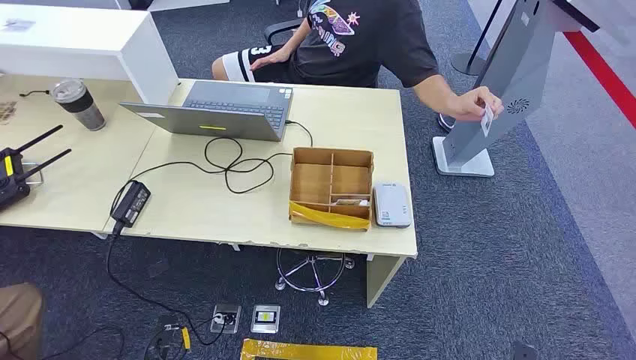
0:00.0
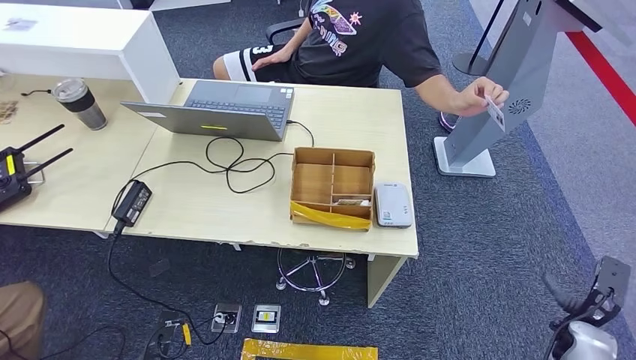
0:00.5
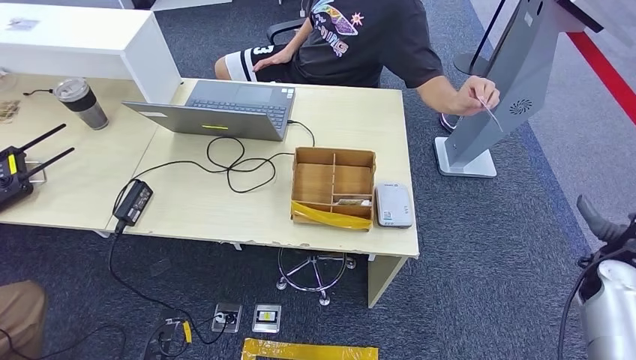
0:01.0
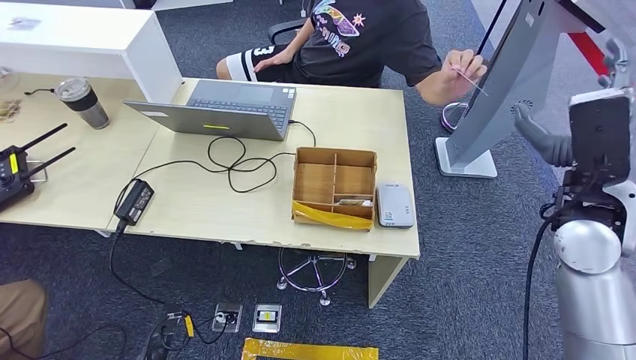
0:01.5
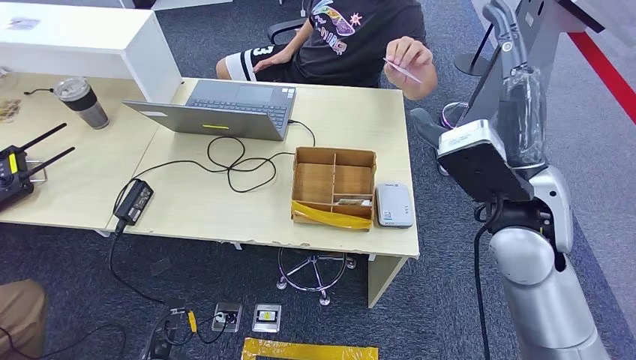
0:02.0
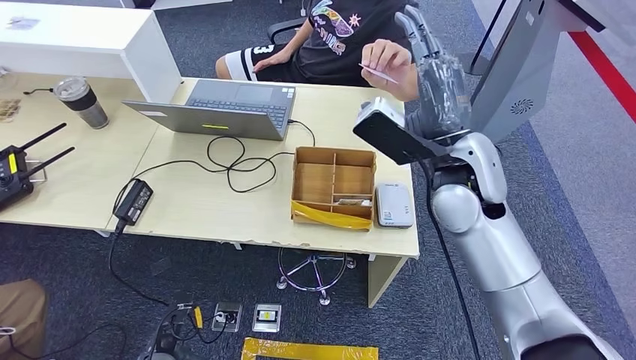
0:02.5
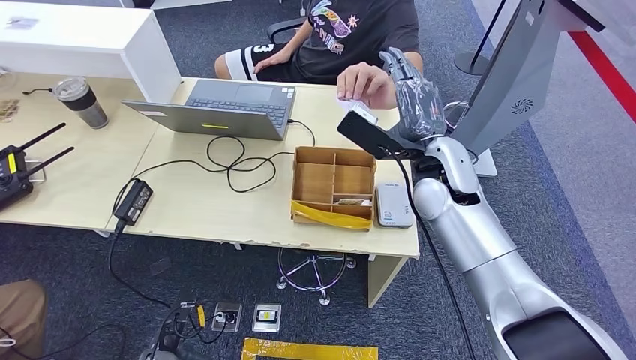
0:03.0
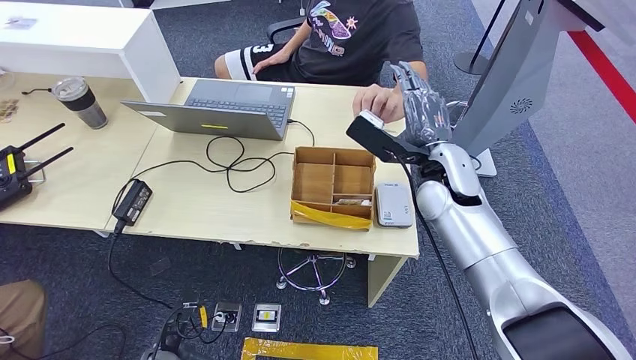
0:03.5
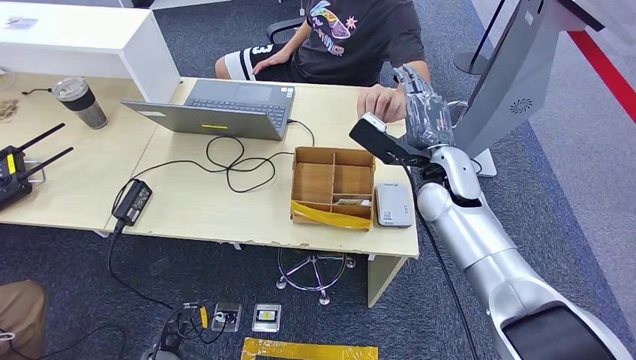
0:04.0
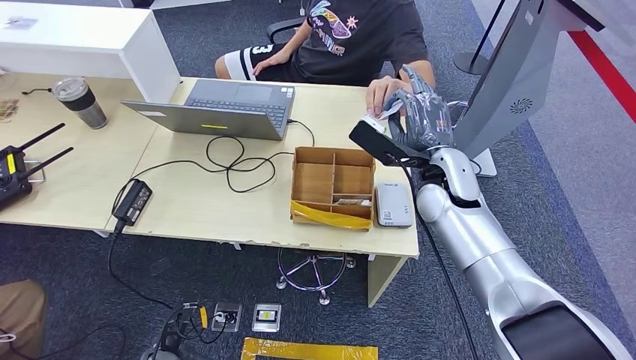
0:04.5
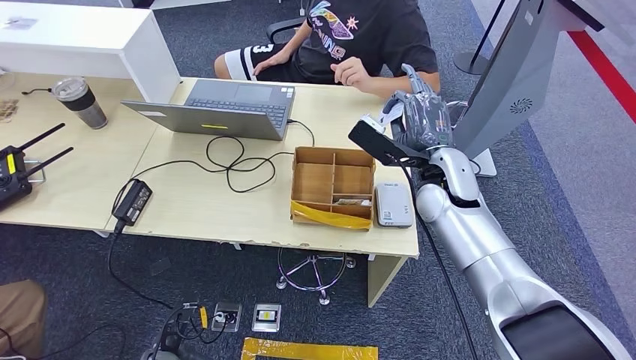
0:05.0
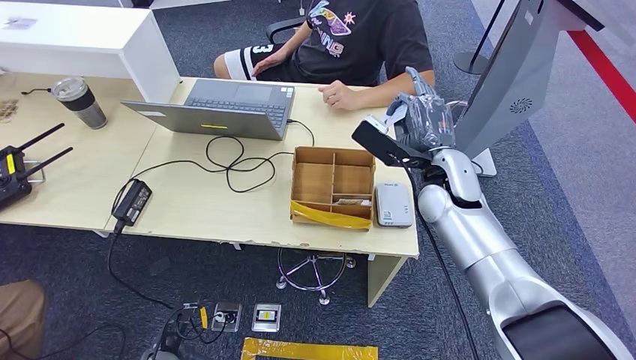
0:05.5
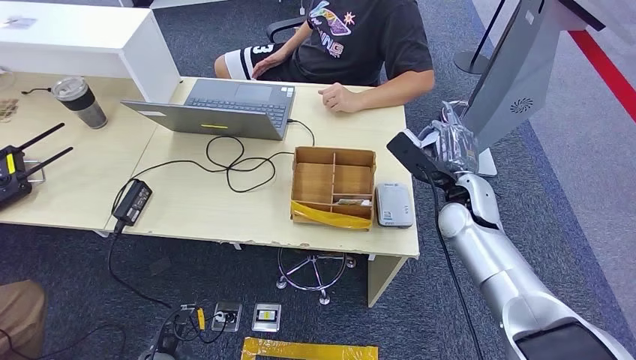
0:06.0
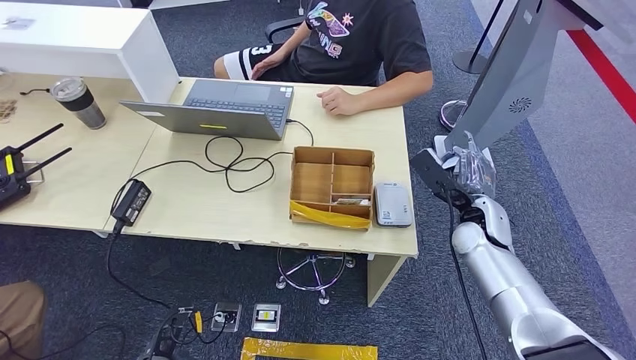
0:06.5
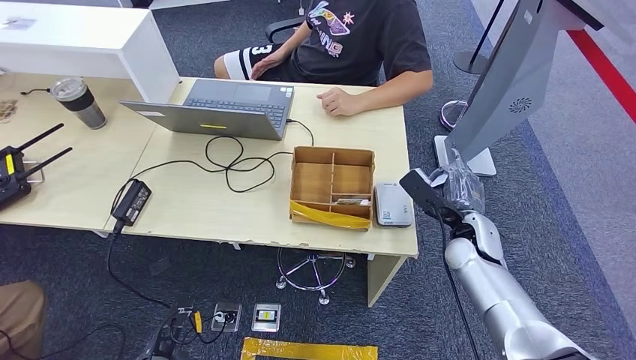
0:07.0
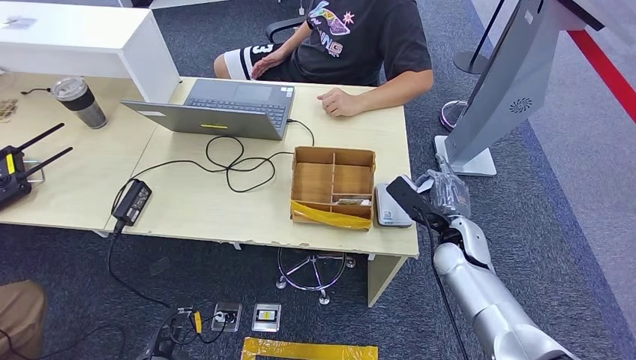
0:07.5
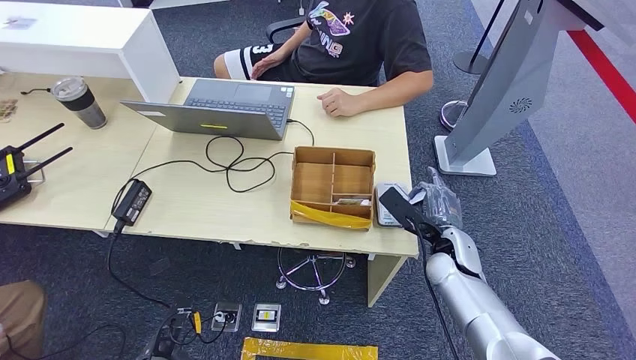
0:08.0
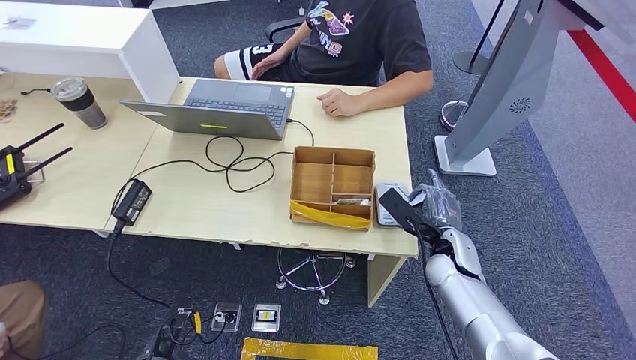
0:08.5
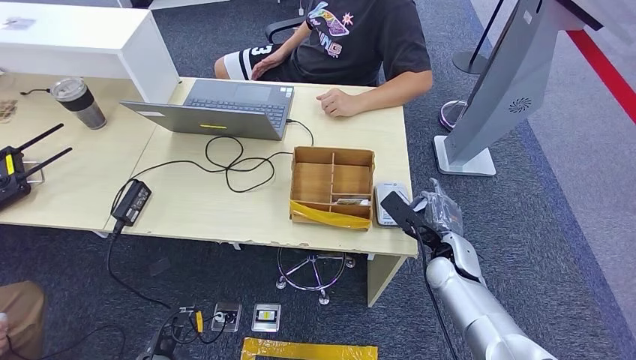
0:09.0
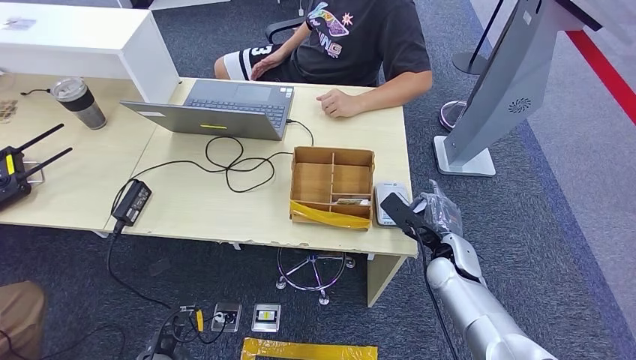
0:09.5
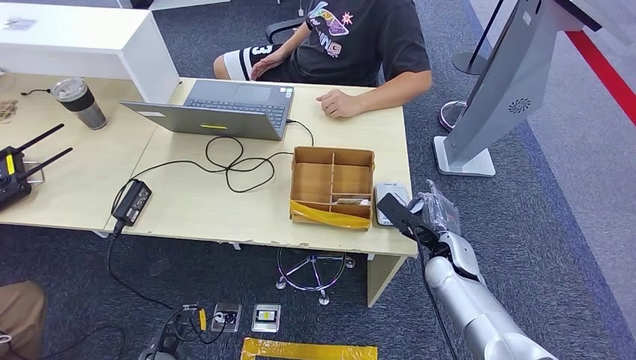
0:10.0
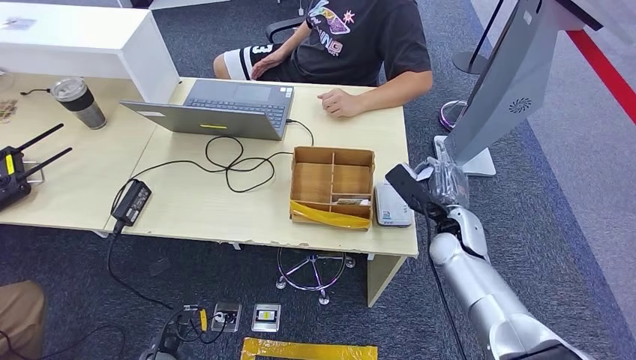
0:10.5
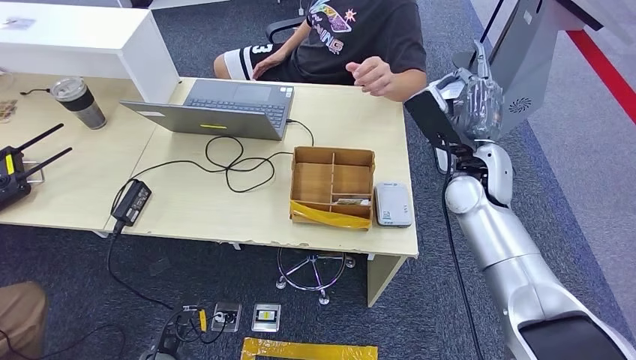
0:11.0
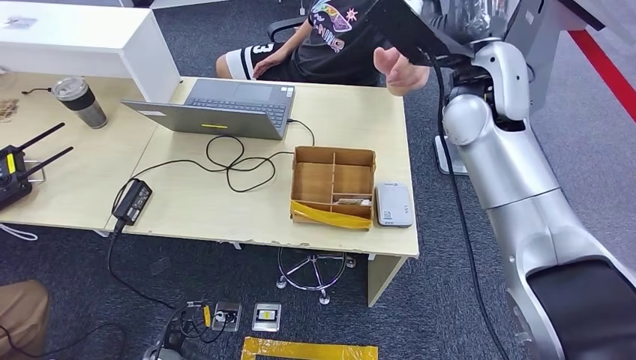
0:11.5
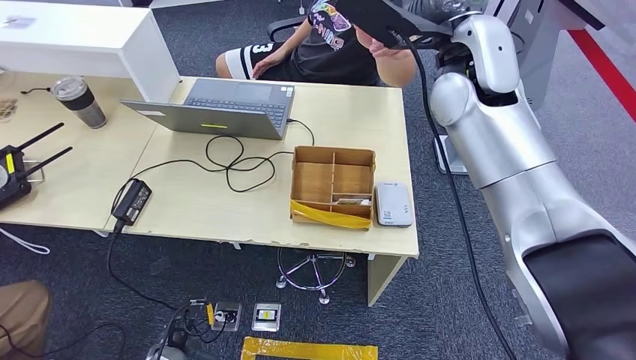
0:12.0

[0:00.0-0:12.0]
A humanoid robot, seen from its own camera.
Step, 0:00.0 to 0:04.0: Take the ID card from the person's hand.
Step, 0:04.5 to 0:09.0: Place the ID card on the card reader.
0:02.0 to 0:04.0: The right hand shifts roughly 15 cm downward and forward.
0:04.0 to 0:06.0: The right hand is displaced to the right and downward by about 10 cm.
0:06.0 to 0:08.0: The right hand shifts roughly 10 cm downward and backward.
0:08.0 to 0:10.0: There are only small adjustments of the hands.

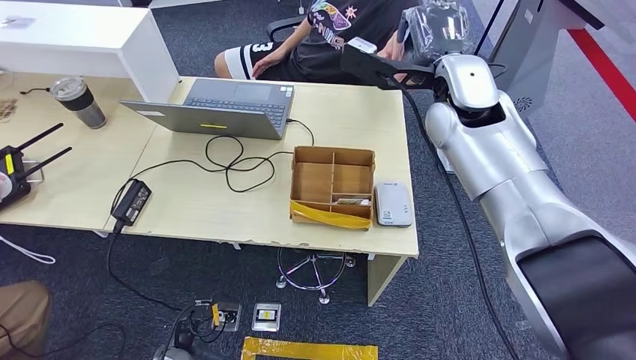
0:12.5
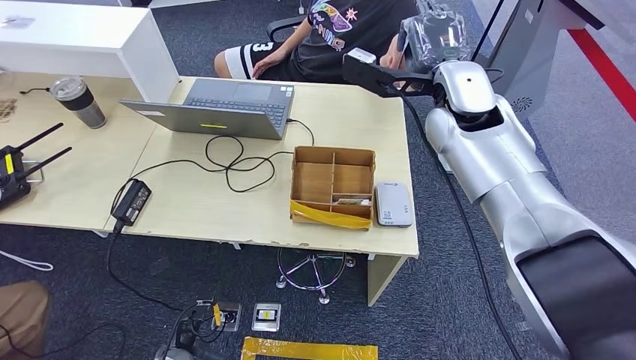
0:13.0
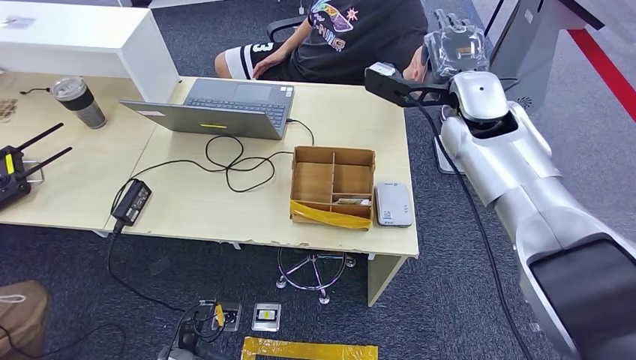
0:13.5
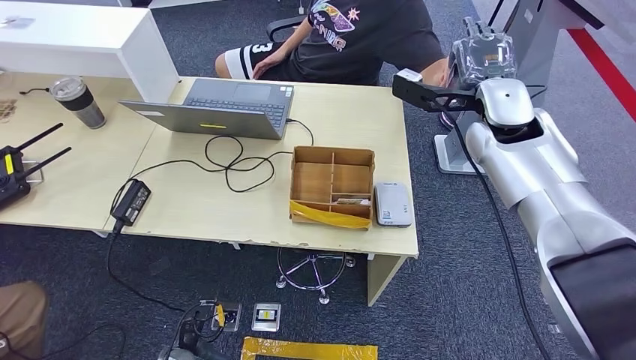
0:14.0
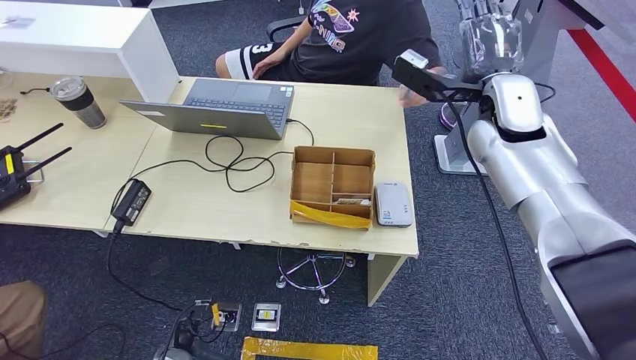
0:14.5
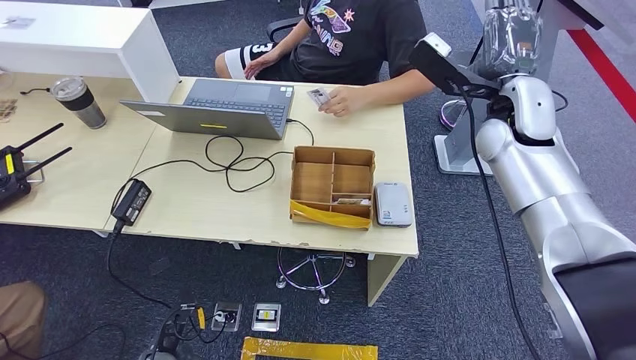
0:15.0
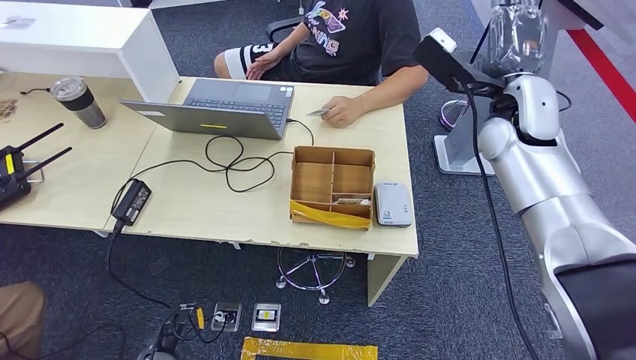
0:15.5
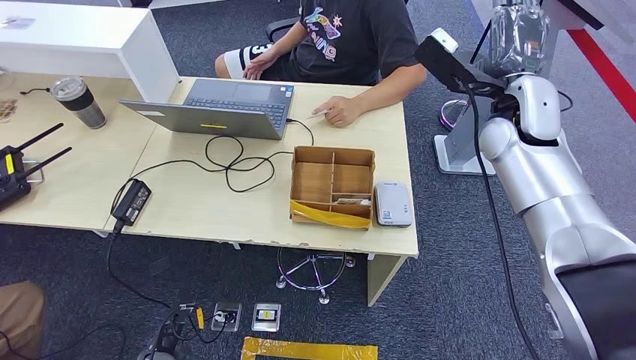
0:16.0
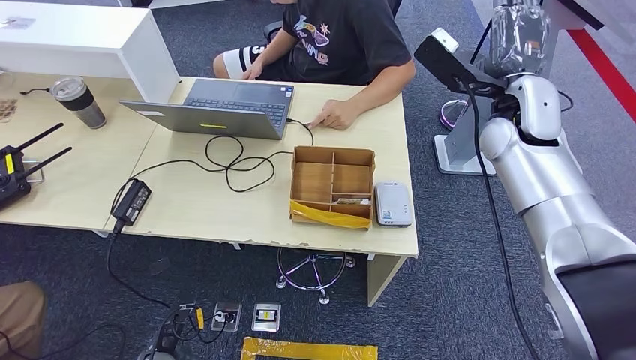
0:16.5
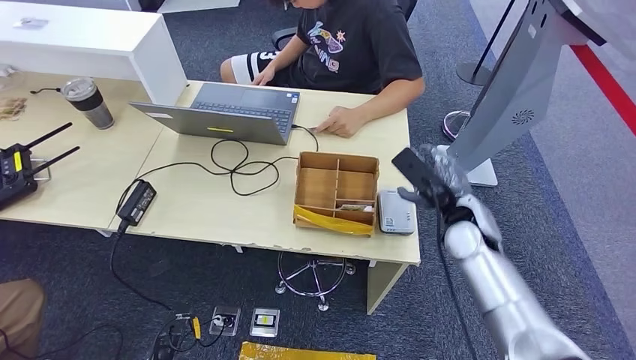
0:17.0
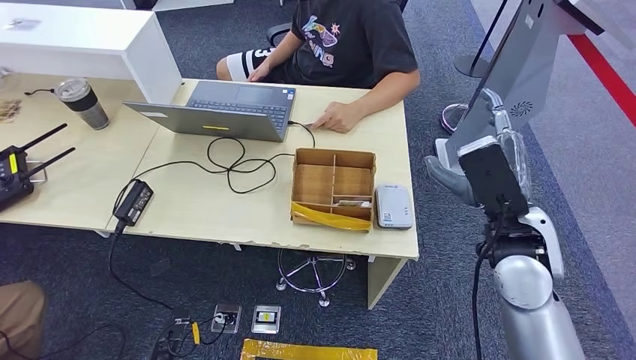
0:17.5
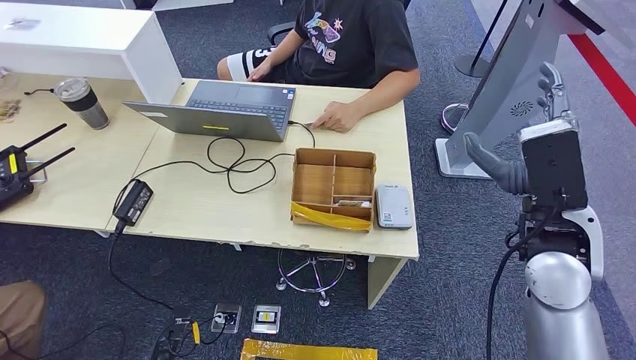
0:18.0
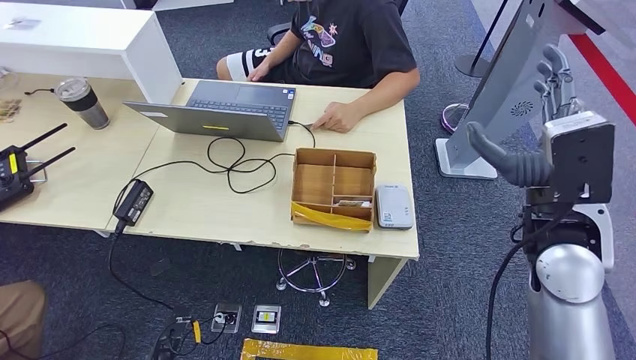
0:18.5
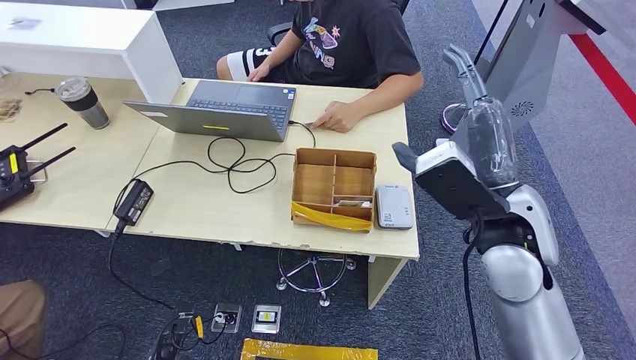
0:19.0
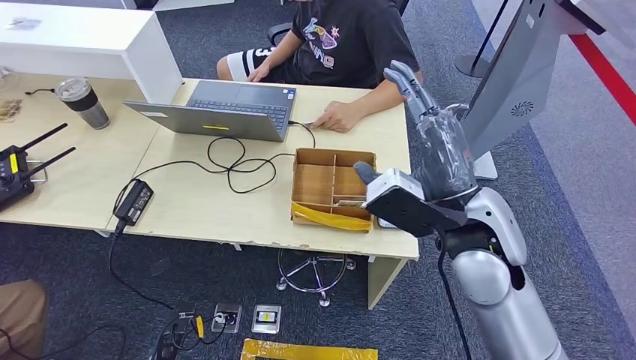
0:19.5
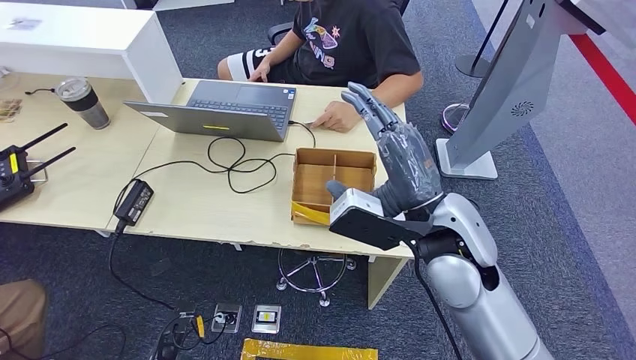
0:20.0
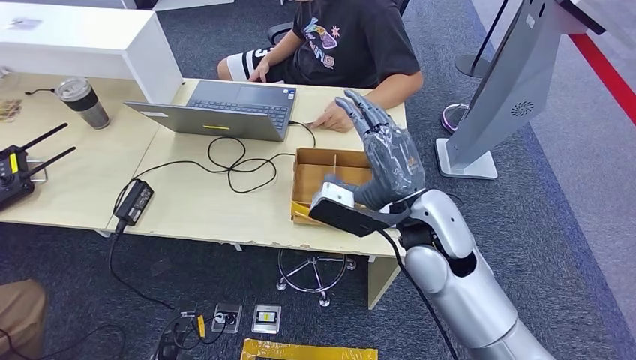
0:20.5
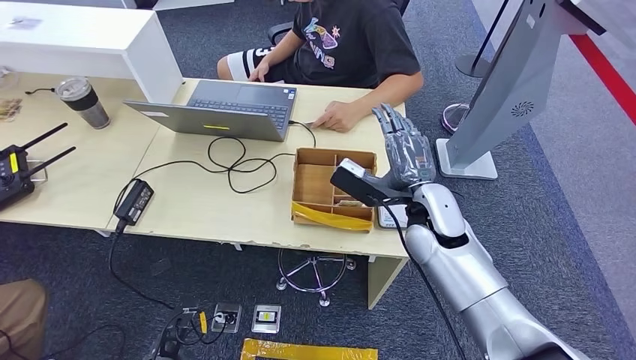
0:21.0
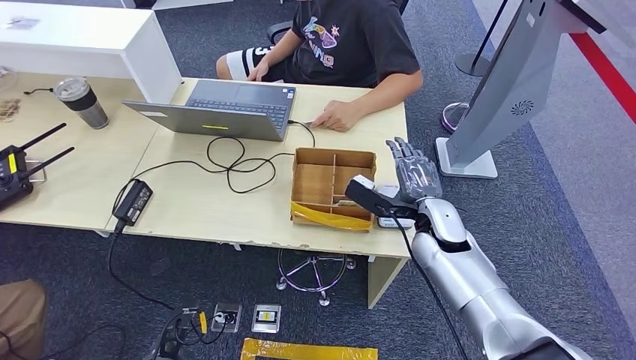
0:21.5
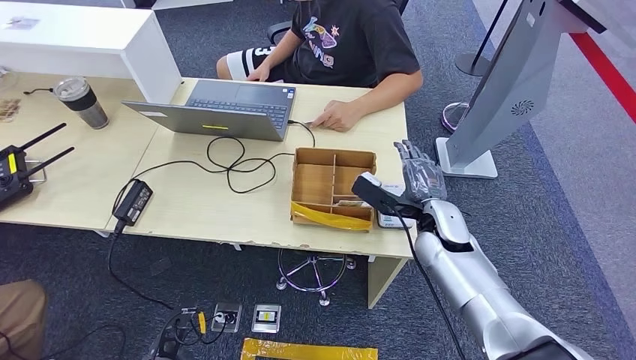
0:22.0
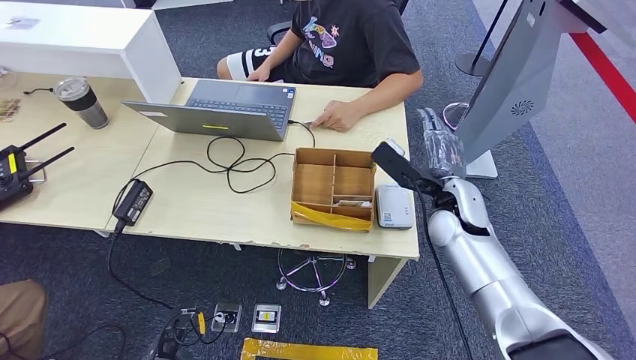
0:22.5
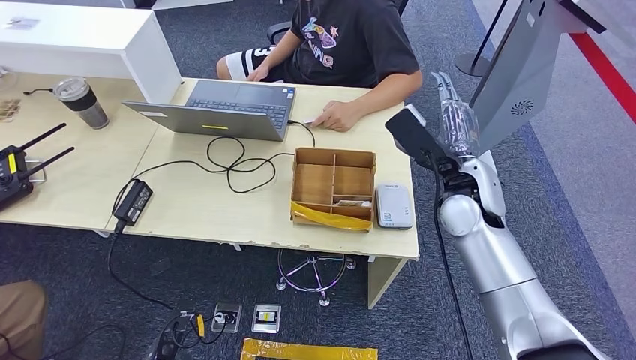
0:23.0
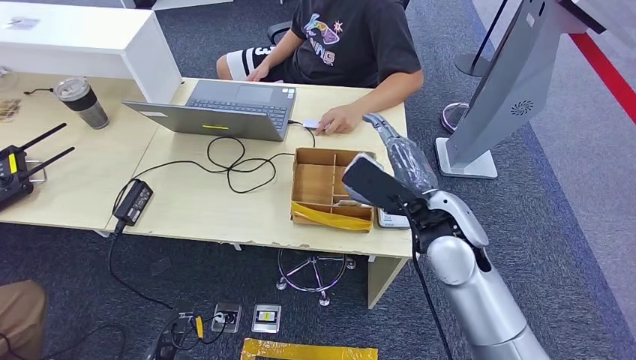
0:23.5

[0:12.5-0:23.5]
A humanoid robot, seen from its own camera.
0:12.5 to 0:14.5: The right hand is displaced to the right by approximately 10 cm.
0:14.5 to 0:16.0: There are only small adjustments of the hands.
0:18.0 to 0:20.0: The right hand heads to the left, covering some 15 cm.
0:20.0 to 0:21.5: The right hand moves downward and forward, approximately 15 cm.
0:21.5 to 0:23.5: The right hand travels upward by approximately 10 cm.
